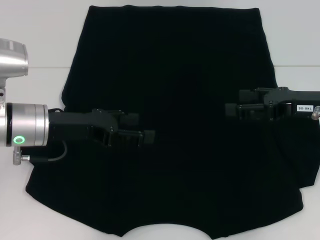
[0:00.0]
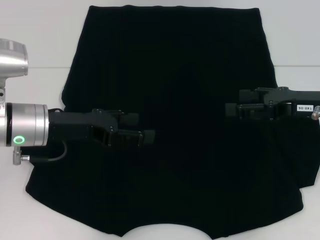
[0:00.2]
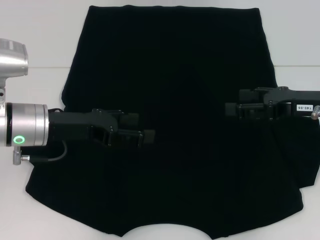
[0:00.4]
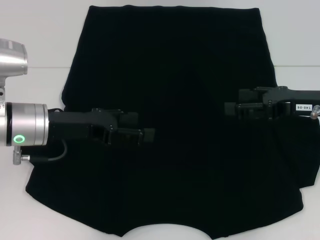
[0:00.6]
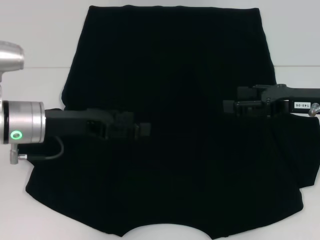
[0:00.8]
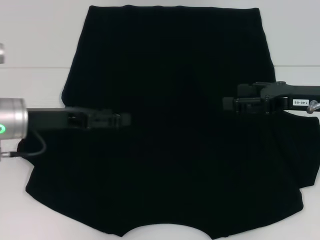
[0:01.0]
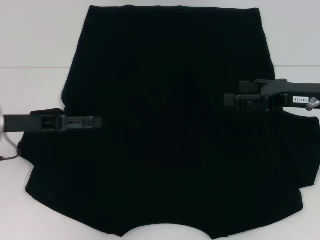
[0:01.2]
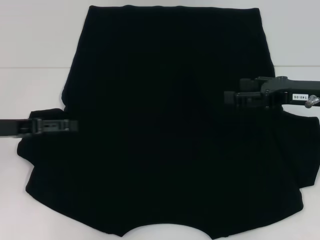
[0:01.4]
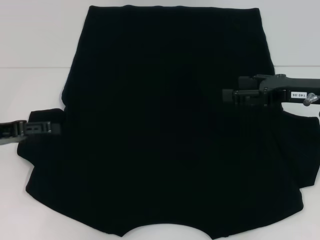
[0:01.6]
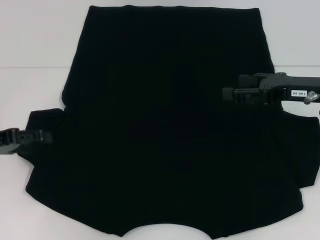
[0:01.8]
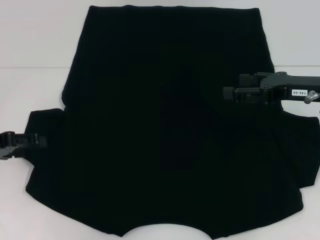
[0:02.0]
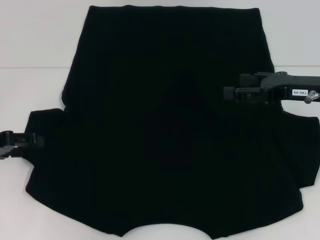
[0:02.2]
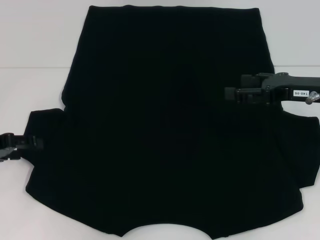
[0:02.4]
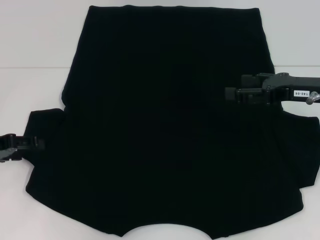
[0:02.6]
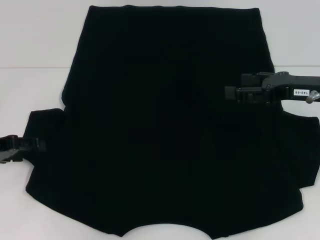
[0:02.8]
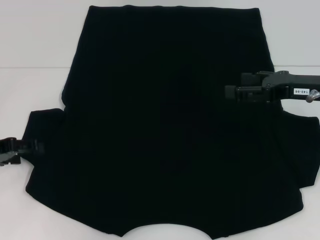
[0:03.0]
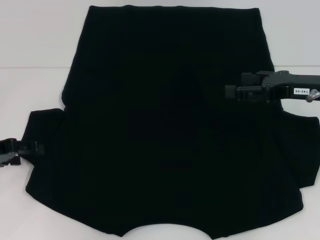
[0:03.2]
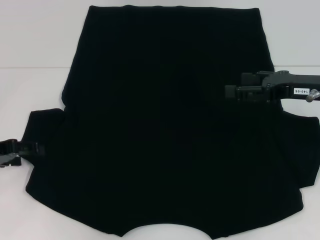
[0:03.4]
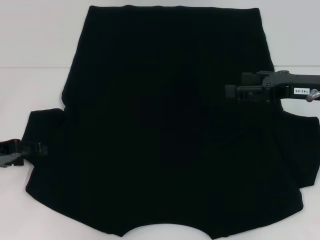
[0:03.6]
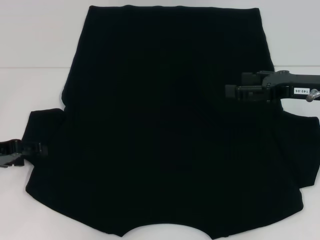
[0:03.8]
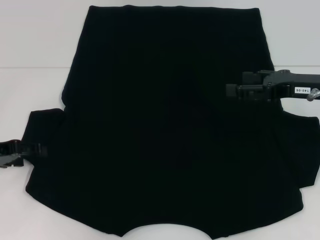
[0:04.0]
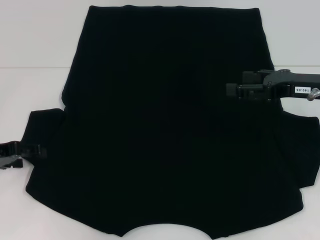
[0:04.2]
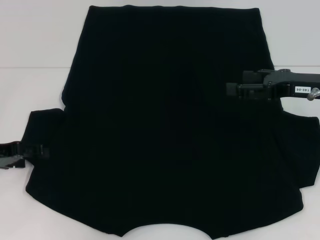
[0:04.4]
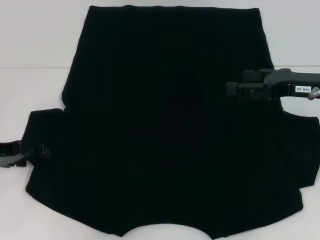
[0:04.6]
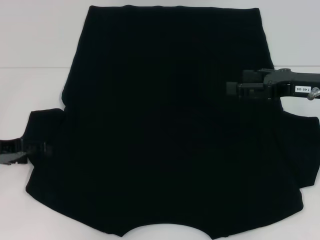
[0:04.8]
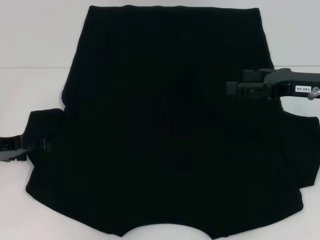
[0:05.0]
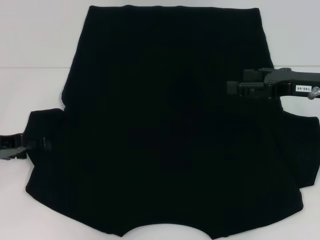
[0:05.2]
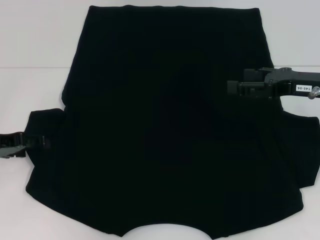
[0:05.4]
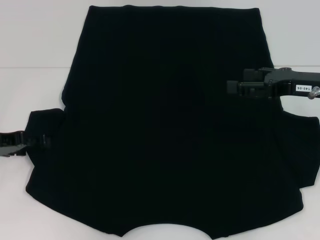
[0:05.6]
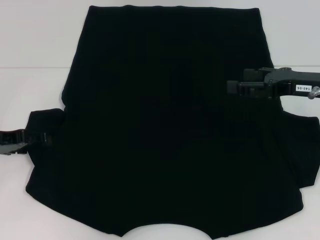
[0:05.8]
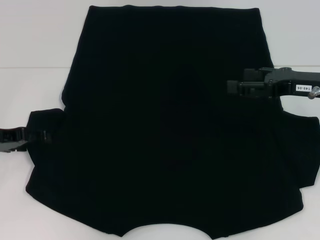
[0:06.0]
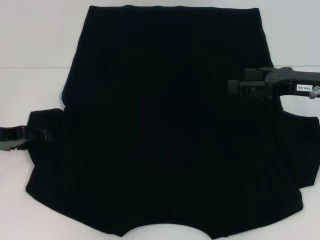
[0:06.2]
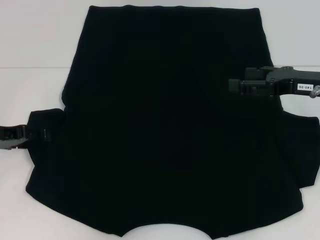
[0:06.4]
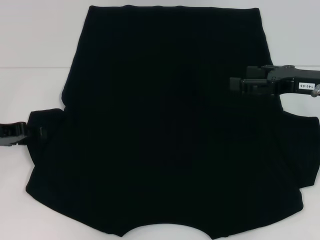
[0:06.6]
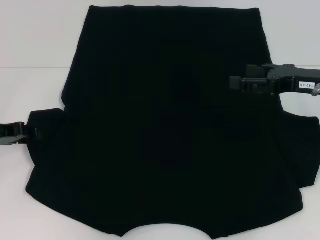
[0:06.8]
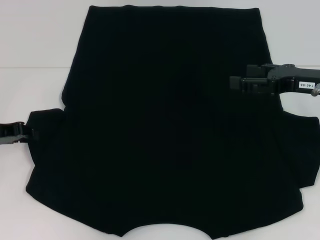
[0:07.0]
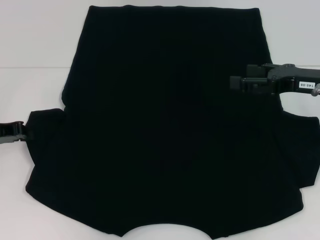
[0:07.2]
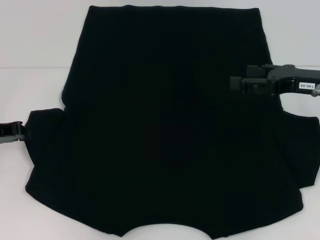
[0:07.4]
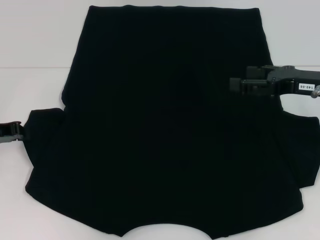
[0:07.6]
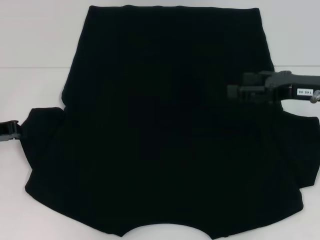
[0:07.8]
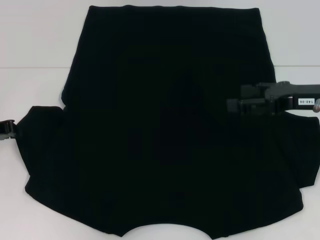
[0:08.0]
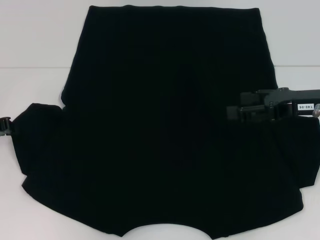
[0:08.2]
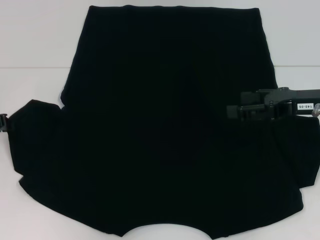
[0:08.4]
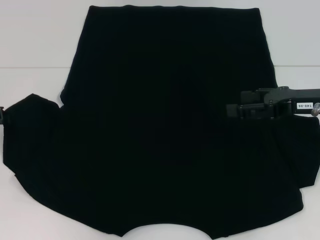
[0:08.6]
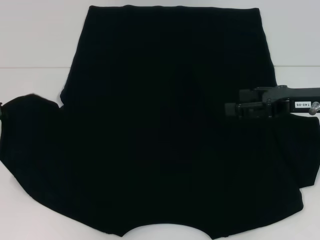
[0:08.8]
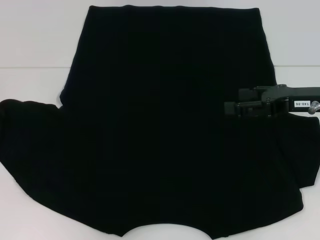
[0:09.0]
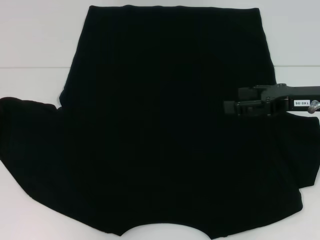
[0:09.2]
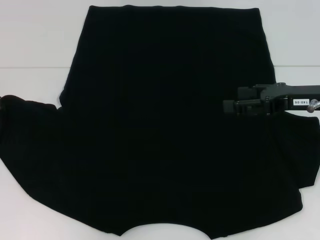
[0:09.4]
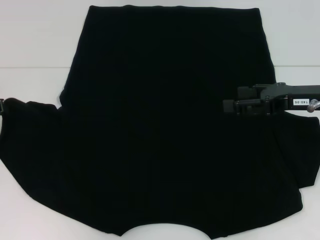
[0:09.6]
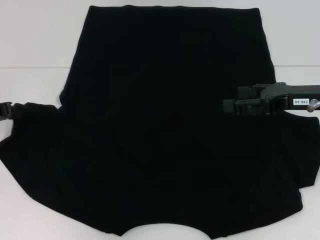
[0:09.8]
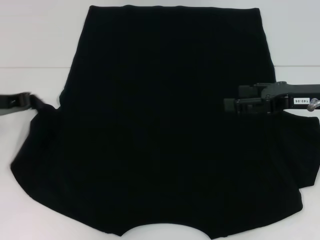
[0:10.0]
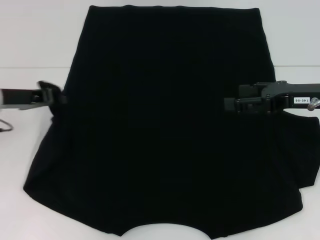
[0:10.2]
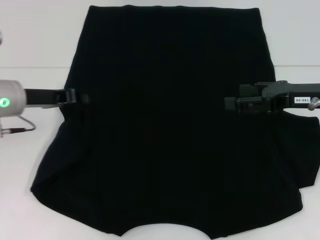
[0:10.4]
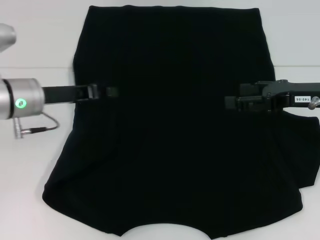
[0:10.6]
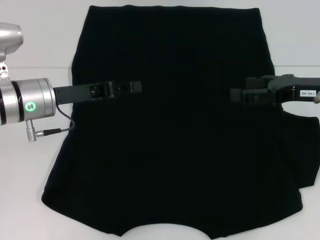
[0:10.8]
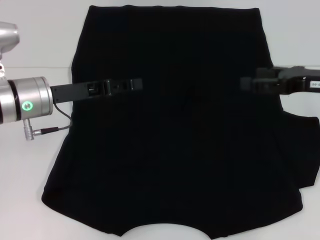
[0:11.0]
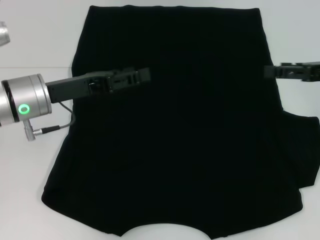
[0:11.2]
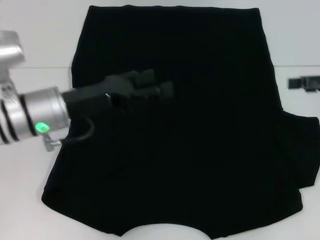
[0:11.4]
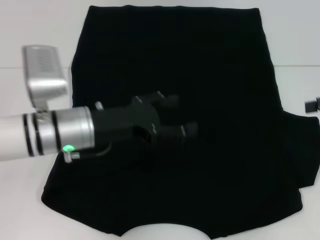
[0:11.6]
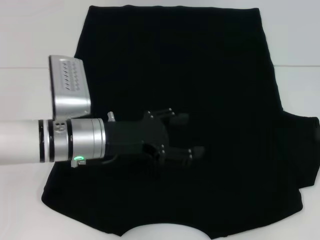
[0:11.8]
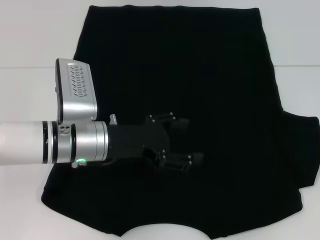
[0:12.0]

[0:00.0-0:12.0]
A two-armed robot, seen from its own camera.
Step, 0:00.0 to 0:11.2: Fold the bottom left sleeve with your left hand.
0:00.0 to 0:01.6: The left gripper goes approximately 10 cm to the left.
0:01.6 to 0:03.0: The grippers move only a little.
0:03.0 to 0:04.4: Both grippers stay put.
0:04.4 to 0:06.0: The grippers move only a little.
0:06.0 to 0:07.6: The left gripper closes up.
0:07.6 to 0:09.0: The grippers stay close to where they were, moving slightly.
0:09.0 to 0:10.4: The left gripper travels to the right by some 10 cm.
0:10.4 to 0:12.0: The two grippers go roughly 10 cm to the right. The left gripper opens its fingers.

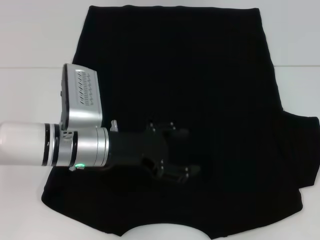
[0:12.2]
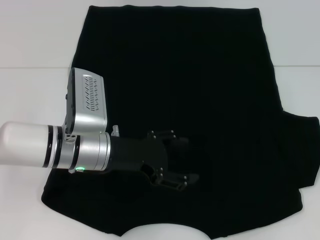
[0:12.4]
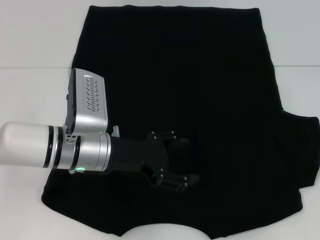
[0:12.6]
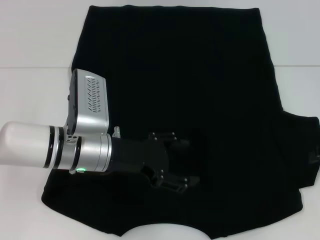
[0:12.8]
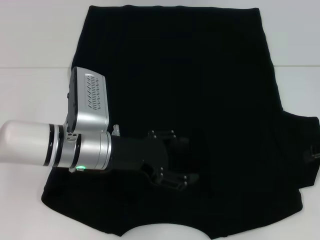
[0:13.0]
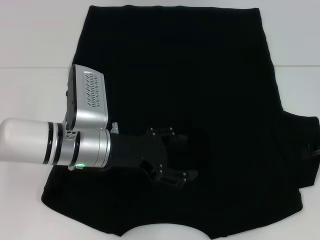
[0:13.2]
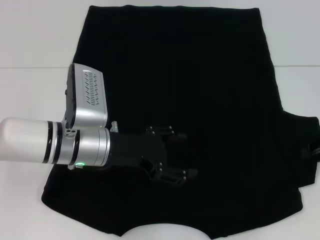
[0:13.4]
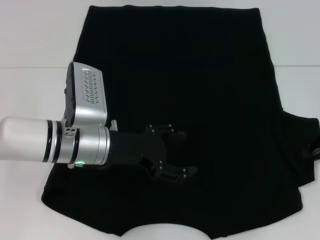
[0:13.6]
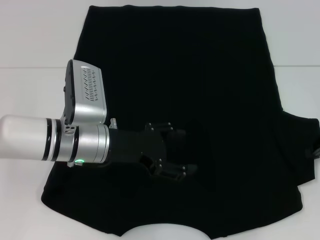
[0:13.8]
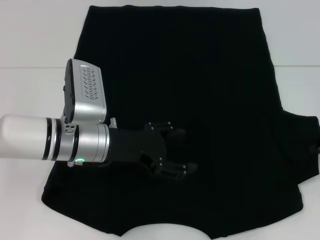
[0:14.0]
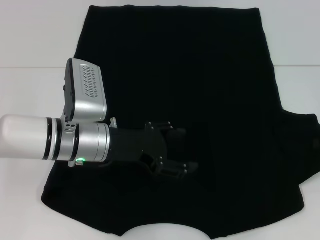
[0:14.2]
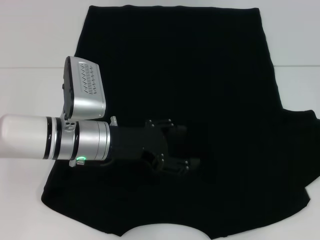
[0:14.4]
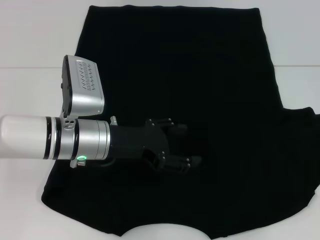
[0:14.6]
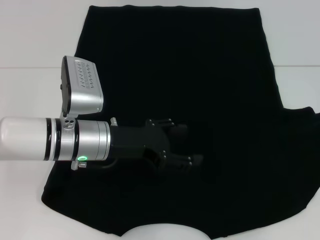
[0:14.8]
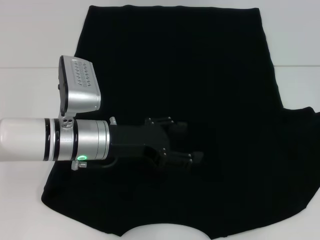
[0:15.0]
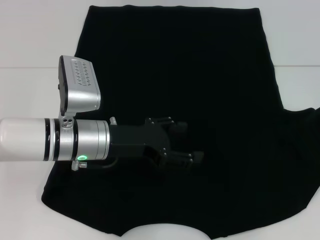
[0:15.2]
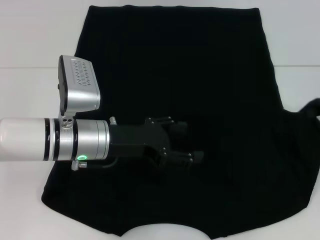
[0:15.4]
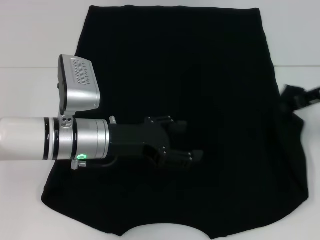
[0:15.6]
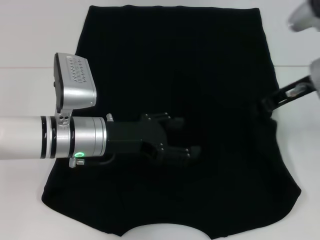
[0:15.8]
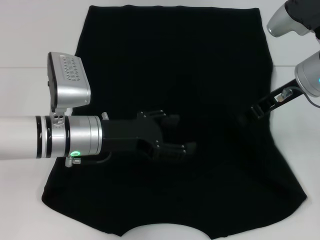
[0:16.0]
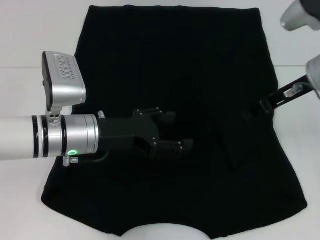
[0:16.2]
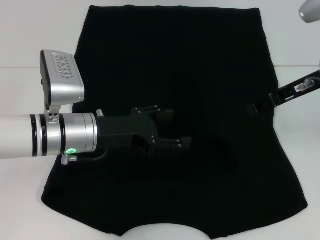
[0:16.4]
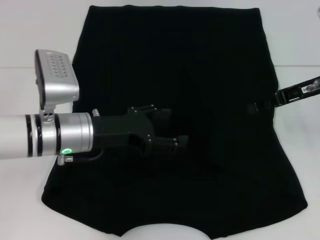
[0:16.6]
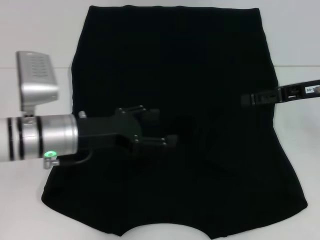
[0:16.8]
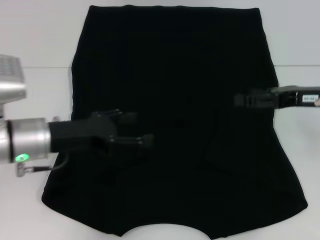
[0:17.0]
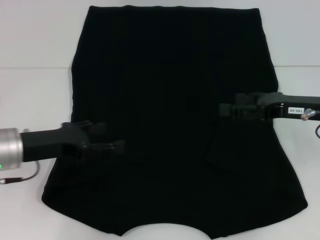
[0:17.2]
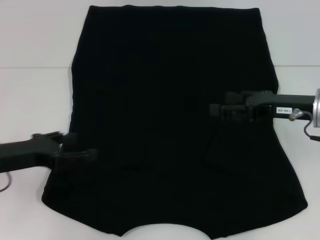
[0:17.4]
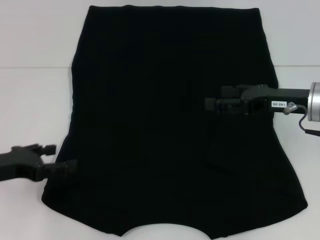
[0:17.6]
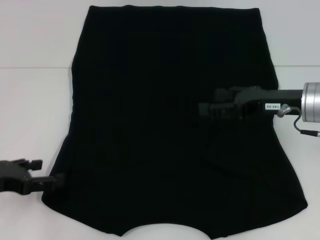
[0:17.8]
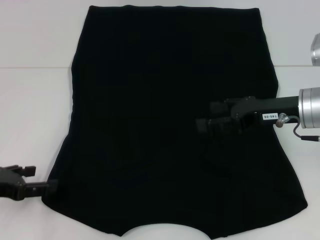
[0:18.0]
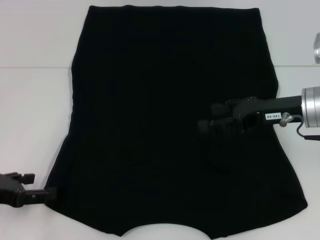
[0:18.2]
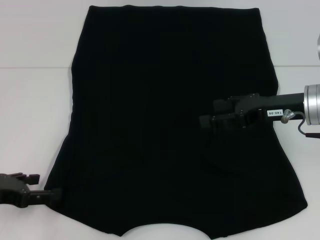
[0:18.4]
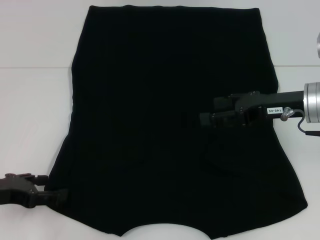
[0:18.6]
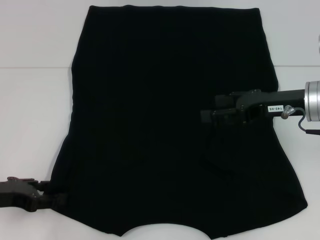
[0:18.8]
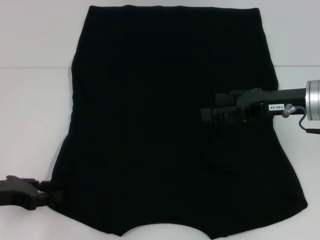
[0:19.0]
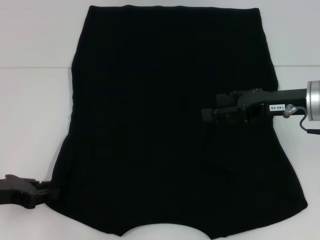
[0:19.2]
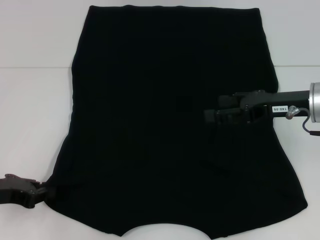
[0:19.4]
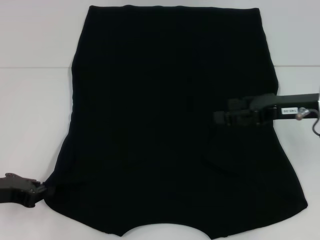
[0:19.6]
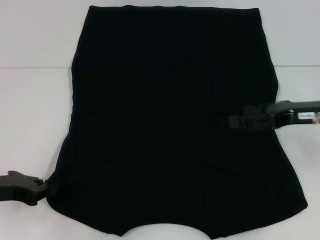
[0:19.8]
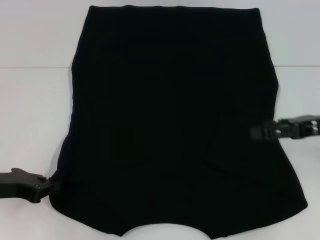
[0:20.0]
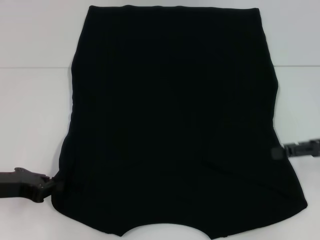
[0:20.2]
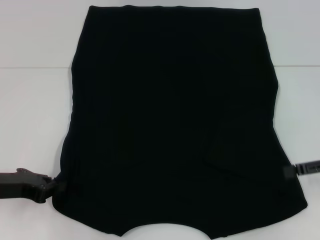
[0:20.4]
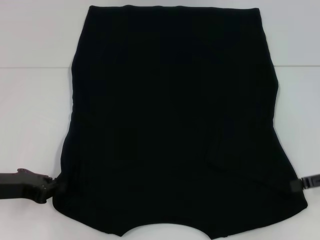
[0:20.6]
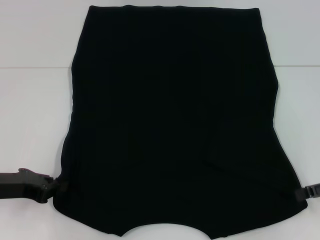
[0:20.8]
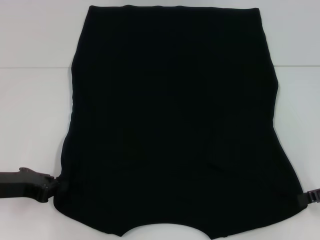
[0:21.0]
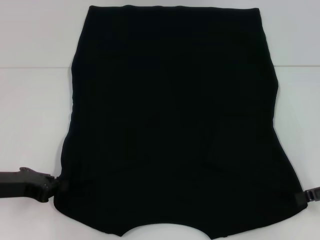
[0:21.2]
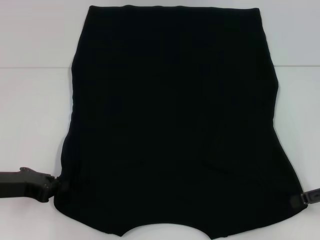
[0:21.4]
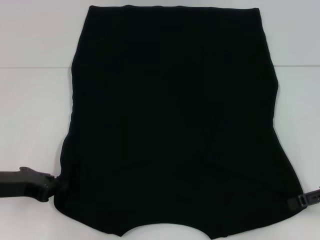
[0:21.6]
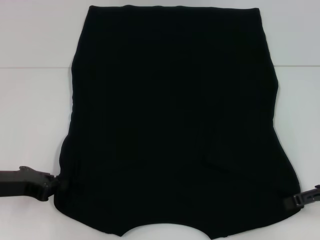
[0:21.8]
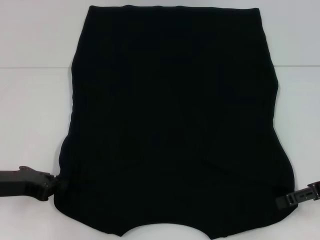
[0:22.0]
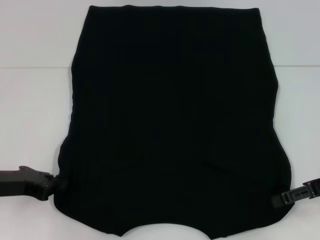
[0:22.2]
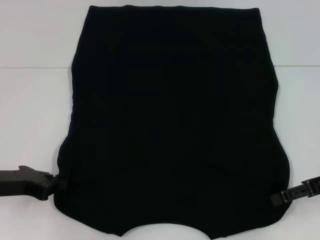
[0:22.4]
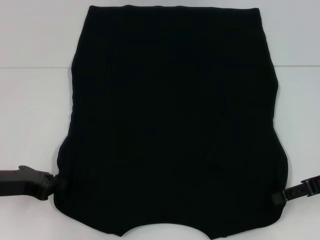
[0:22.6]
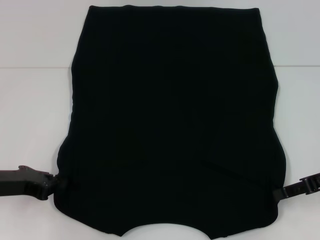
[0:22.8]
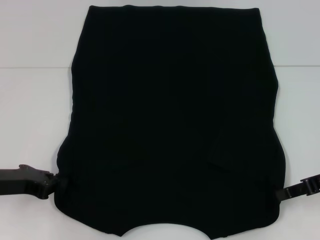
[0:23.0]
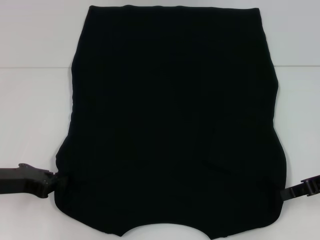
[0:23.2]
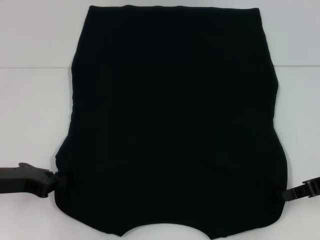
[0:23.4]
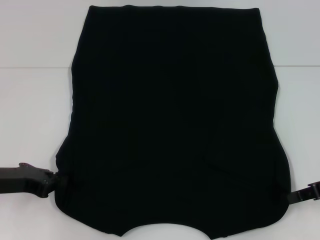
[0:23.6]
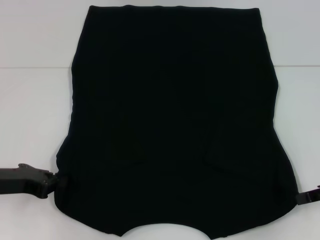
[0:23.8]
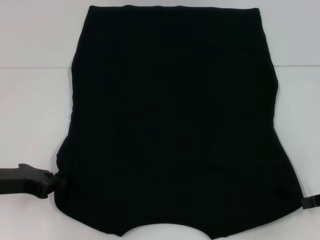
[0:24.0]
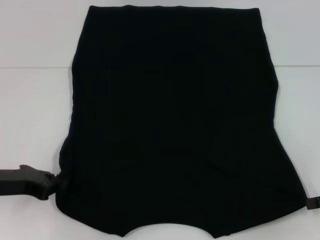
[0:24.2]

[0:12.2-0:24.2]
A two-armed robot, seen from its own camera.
Step, 0:12.2 to 0:16.4: Fold the bottom right sleeve with your right hand.
Step, 0:16.6 to 0:23.0: Grab the bottom left corner with your left hand.
Step, 0:16.6 to 0:23.0: Grab the bottom right corner with your right hand.
0:12.2 to 0:13.8: The right gripper ends up some 5 cm from where it was, and closes.
0:15.2 to 0:16.6: The right gripper shifts about 10 cm to the left, and opens its fingers.
0:16.6 to 0:18.2: The right gripper shifts by roughly 5 cm, and opens, while the left gripper goes roughly 20 cm to the left and backward.
0:18.2 to 0:19.8: The left gripper closes up.
0:19.8 to 0:21.2: The right gripper is displaced to the right and backward by about 10 cm.
0:21.2 to 0:22.6: The grippers stay close to where they were, moving slightly.
0:22.6 to 0:24.2: The right gripper ends up roughly 5 cm from where it was, and closes.
